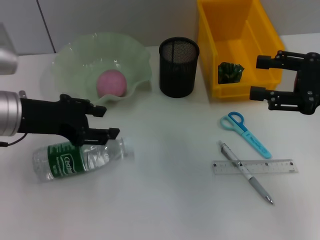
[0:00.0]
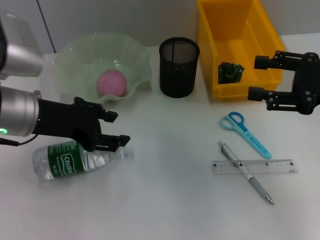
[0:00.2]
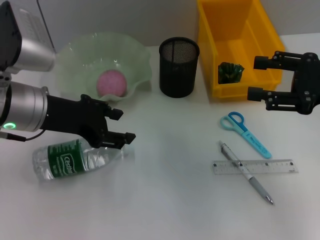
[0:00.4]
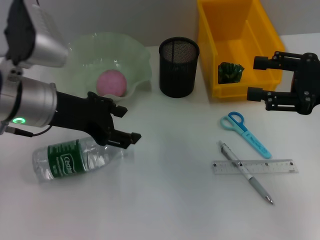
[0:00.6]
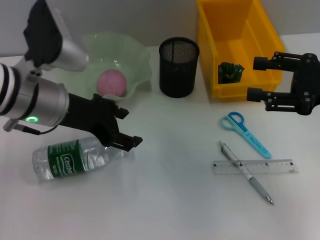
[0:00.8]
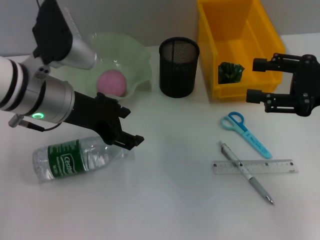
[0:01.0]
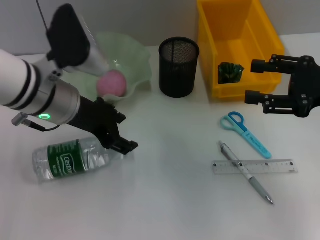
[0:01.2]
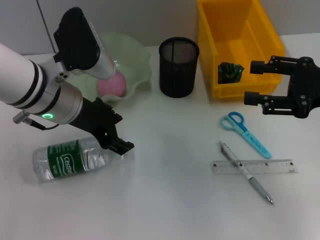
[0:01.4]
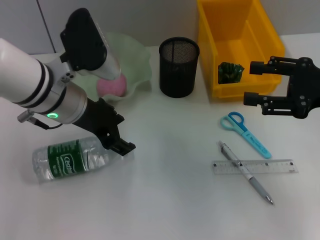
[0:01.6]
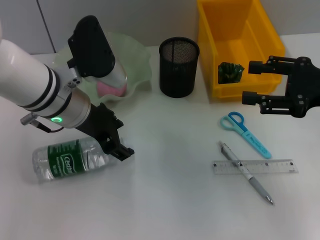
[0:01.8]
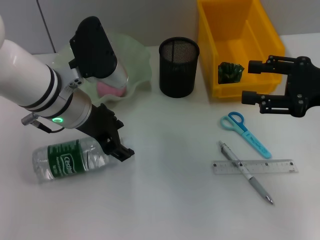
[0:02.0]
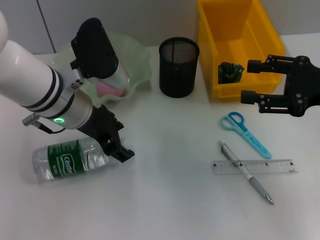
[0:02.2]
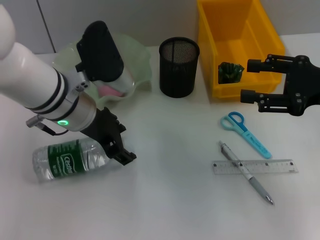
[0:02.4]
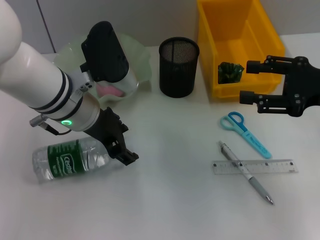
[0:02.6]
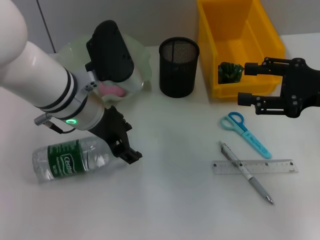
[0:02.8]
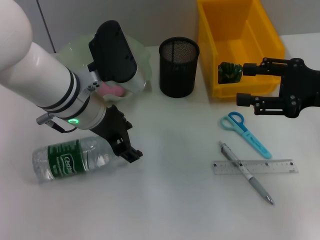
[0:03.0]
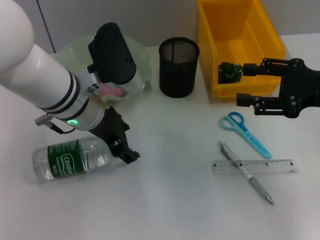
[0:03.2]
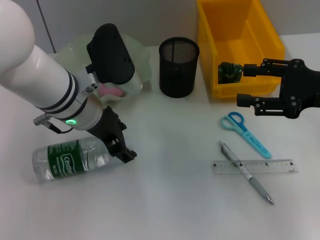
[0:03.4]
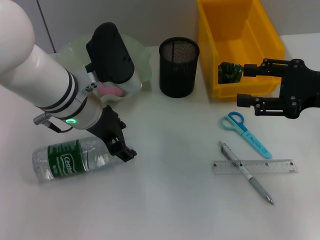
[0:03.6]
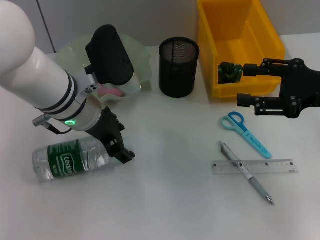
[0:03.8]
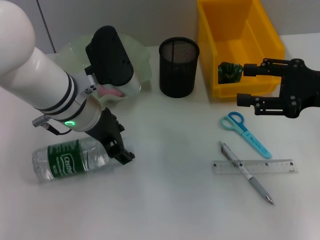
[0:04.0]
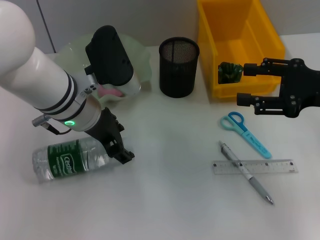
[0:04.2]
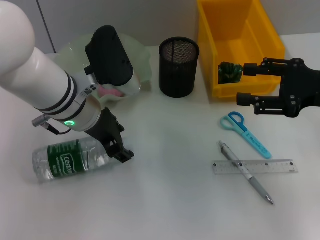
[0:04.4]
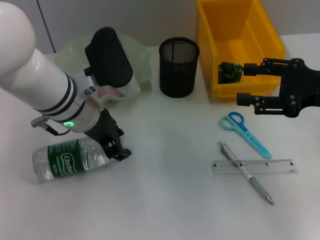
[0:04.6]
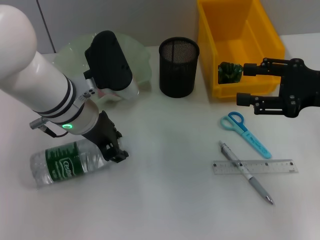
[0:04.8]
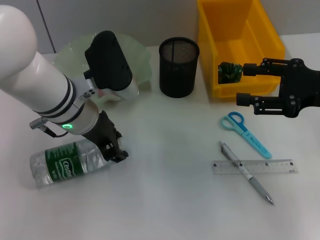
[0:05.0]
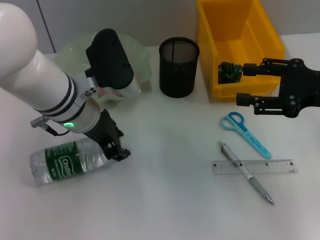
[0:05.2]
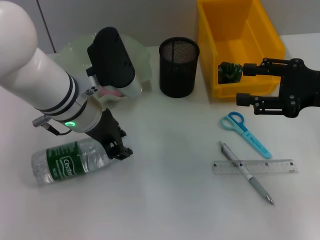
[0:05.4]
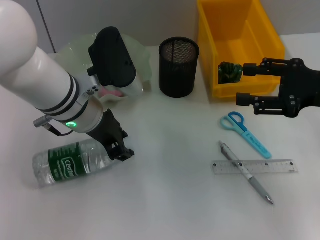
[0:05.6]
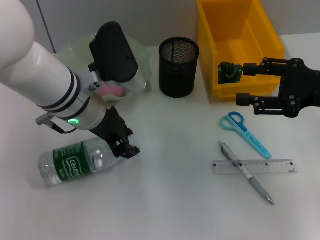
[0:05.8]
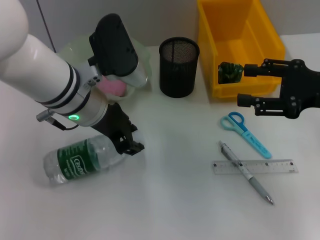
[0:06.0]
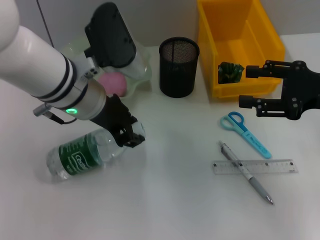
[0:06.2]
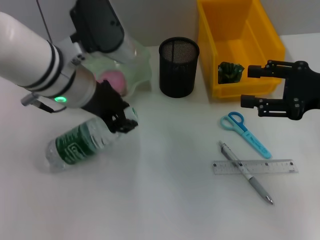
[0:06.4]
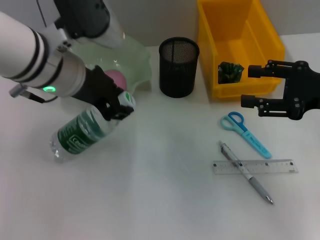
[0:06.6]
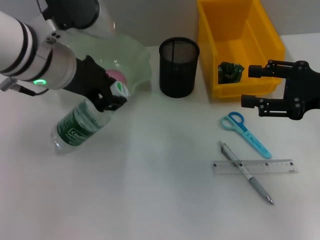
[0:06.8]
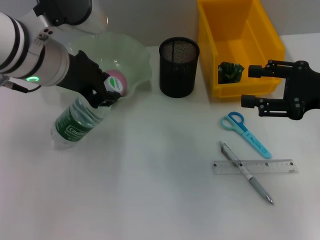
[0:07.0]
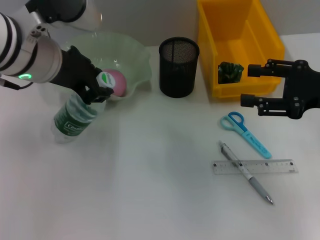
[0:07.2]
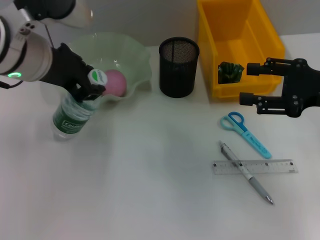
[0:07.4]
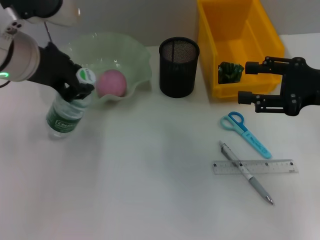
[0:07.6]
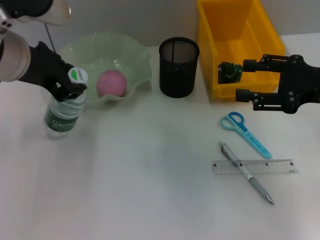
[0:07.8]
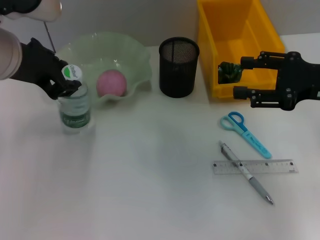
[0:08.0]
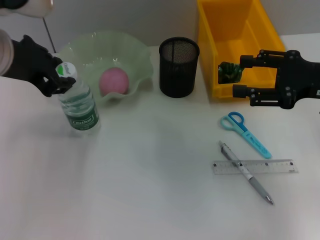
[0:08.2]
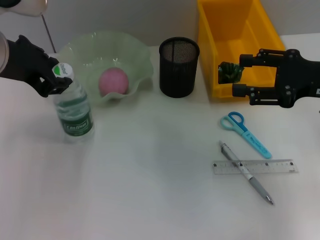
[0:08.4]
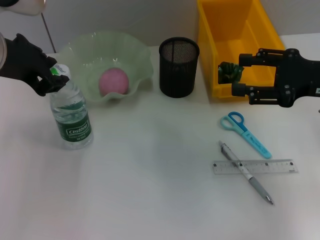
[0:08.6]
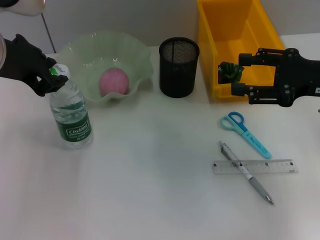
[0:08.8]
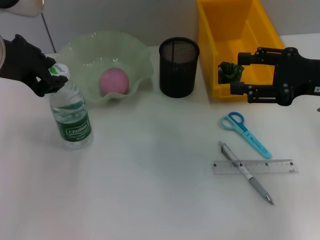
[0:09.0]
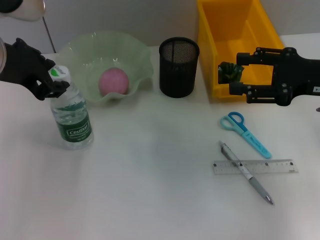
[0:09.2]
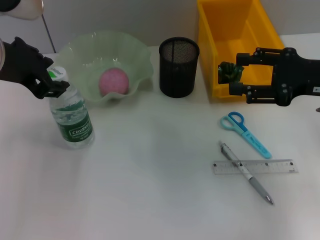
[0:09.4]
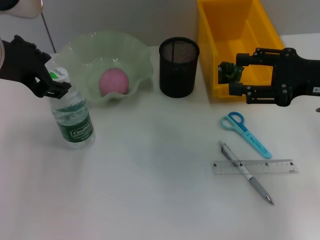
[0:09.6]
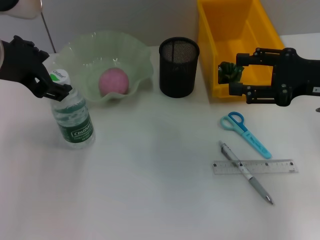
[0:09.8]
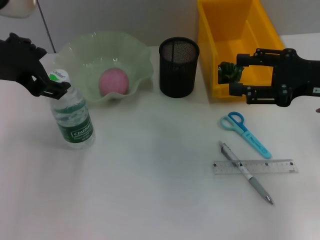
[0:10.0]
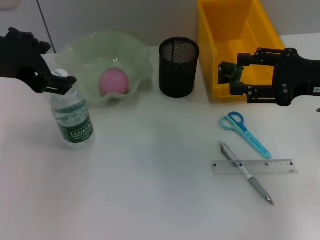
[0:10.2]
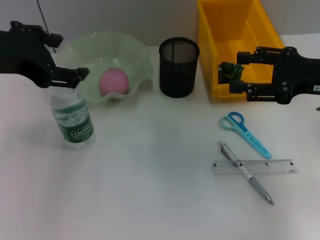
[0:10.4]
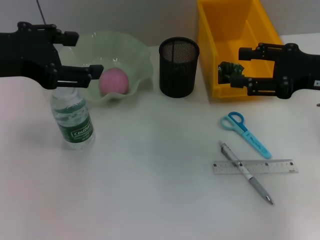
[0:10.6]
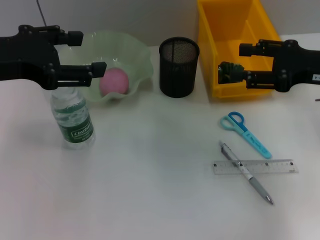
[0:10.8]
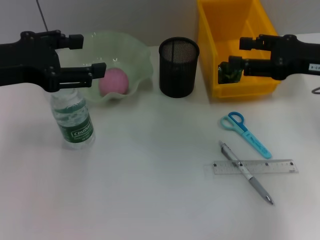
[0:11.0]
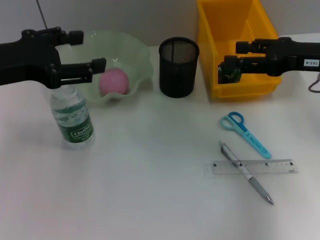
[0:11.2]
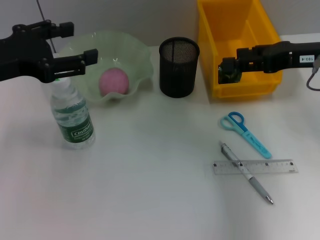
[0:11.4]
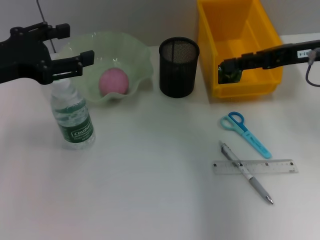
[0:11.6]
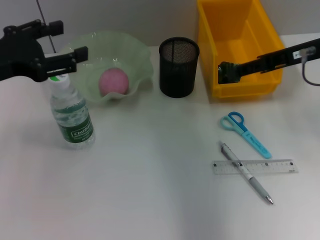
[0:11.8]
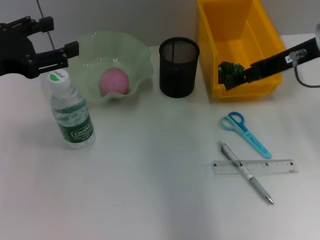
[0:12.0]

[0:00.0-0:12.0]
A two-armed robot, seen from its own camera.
Step, 0:00.0 to 0:04.6: Grab the water bottle with the left hand.
Step, 0:04.8 to 0:09.2: Place the water bottle on the table with the left hand.
0:00.0 to 0:01.6: The left gripper shifts approximately 10 cm to the right.
0:01.6 to 0:03.0: The grippers move only a little.
0:03.0 to 0:04.4: Neither gripper changes place.
0:04.4 to 0:06.0: The left gripper closes.
0:06.0 to 0:07.6: The left gripper travels upward and to the left by some 10 cm.
0:07.6 to 0:09.0: The grippers move only a little.
0:09.0 to 0:10.4: The left gripper opens up.
0:10.4 to 0:12.0: The right gripper shifts approximately 10 cm upward and to the left. The left gripper goes some 10 cm downward and to the left.

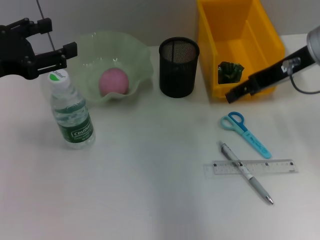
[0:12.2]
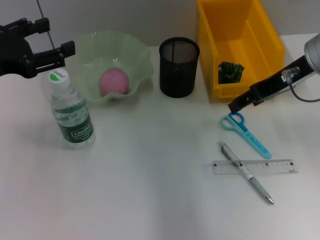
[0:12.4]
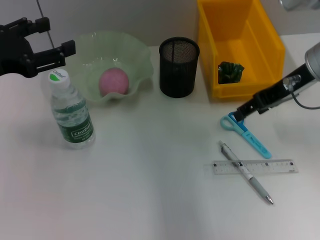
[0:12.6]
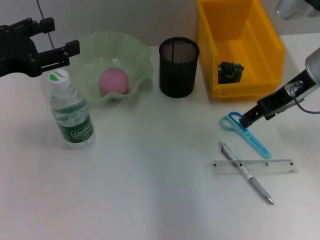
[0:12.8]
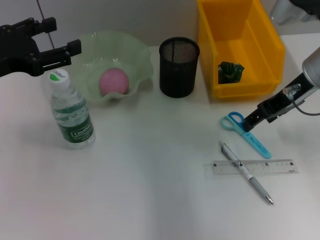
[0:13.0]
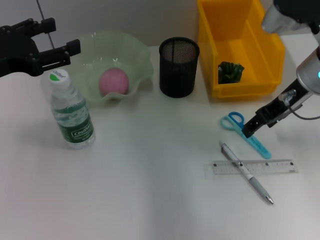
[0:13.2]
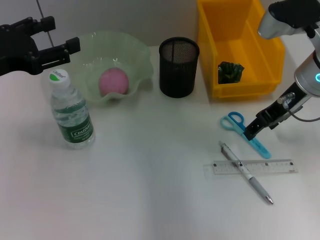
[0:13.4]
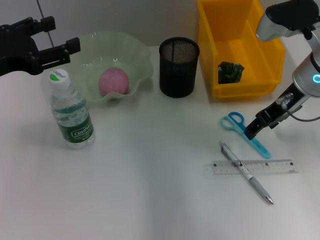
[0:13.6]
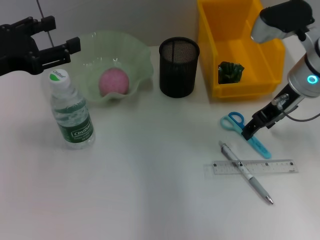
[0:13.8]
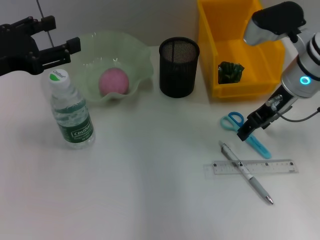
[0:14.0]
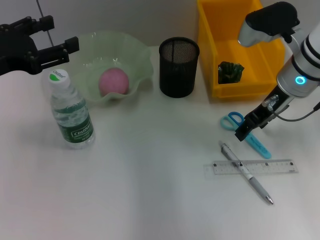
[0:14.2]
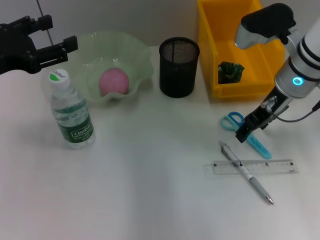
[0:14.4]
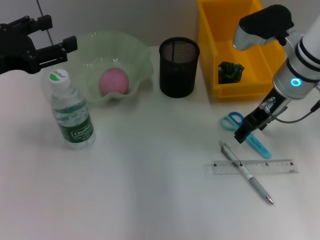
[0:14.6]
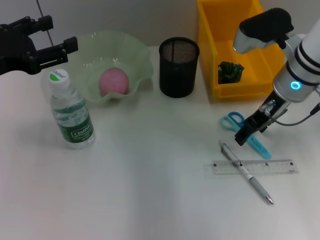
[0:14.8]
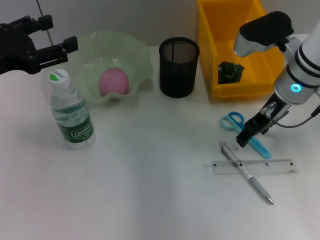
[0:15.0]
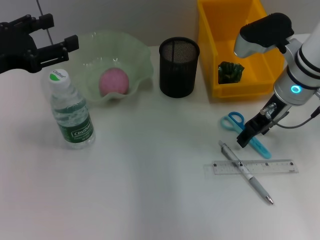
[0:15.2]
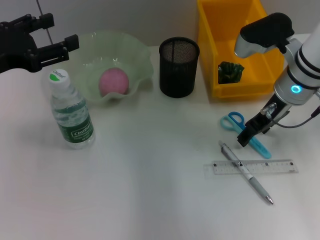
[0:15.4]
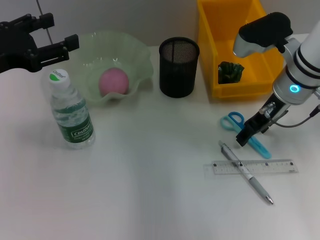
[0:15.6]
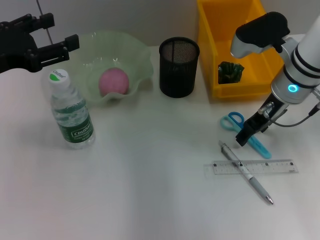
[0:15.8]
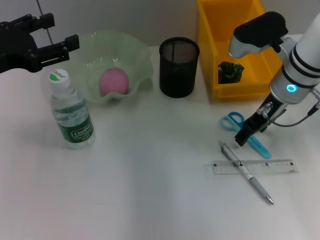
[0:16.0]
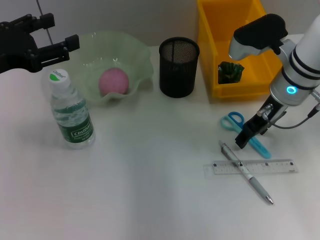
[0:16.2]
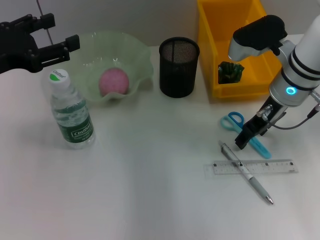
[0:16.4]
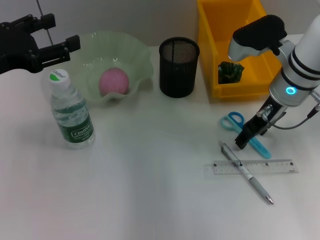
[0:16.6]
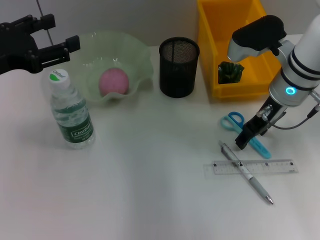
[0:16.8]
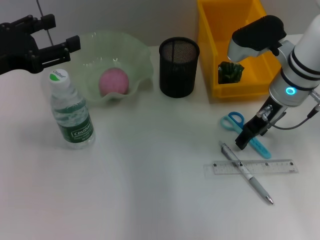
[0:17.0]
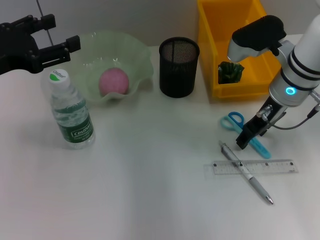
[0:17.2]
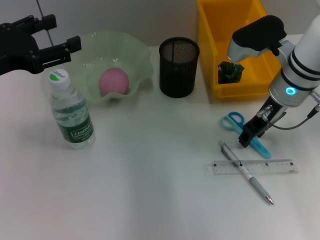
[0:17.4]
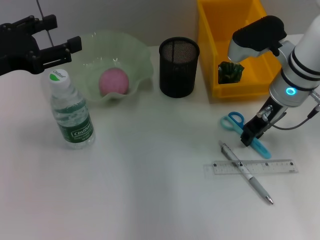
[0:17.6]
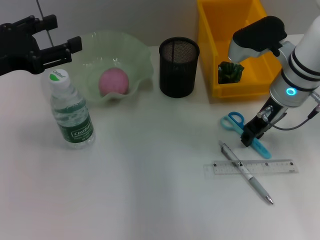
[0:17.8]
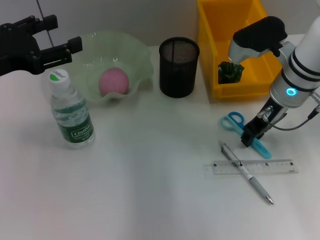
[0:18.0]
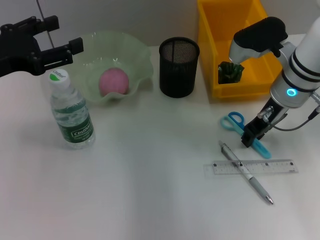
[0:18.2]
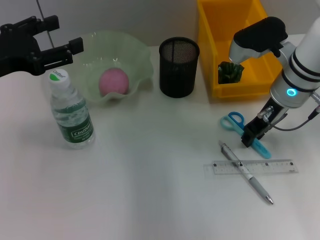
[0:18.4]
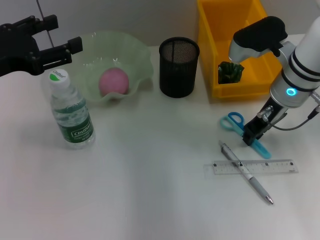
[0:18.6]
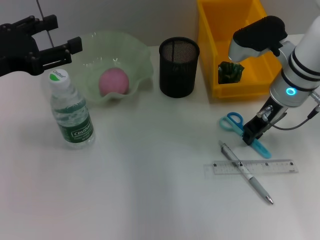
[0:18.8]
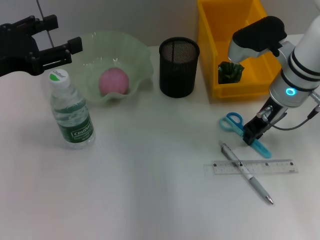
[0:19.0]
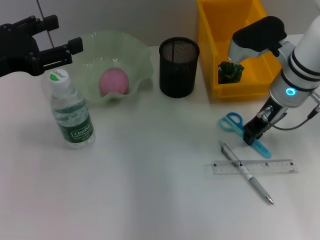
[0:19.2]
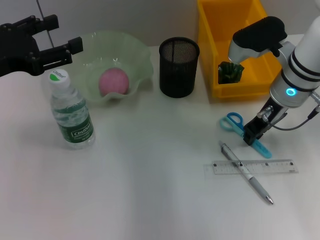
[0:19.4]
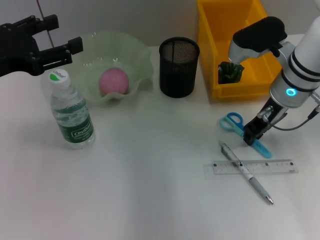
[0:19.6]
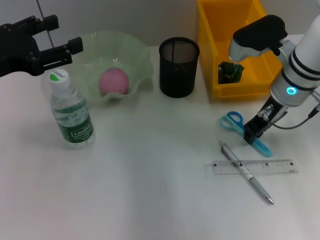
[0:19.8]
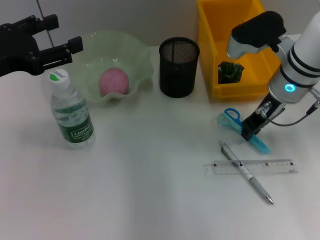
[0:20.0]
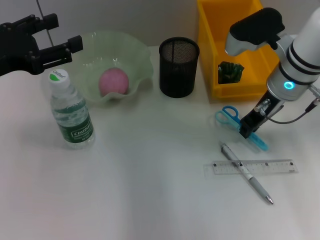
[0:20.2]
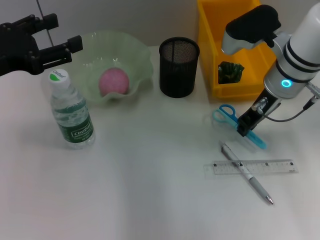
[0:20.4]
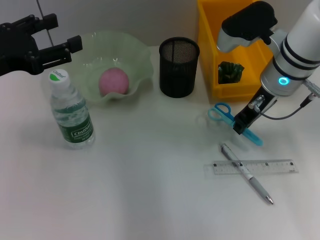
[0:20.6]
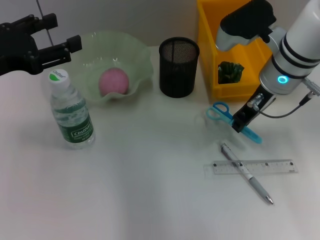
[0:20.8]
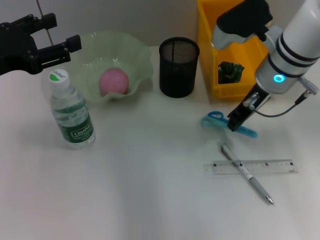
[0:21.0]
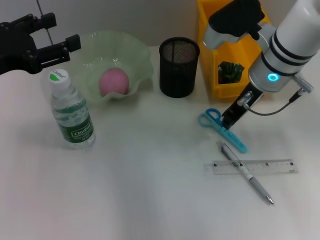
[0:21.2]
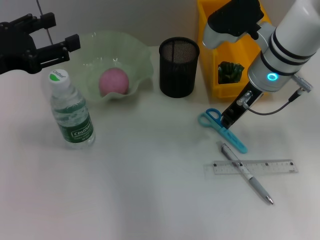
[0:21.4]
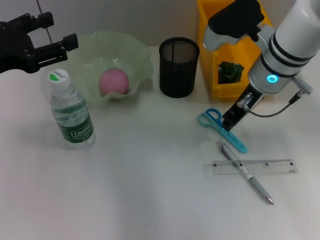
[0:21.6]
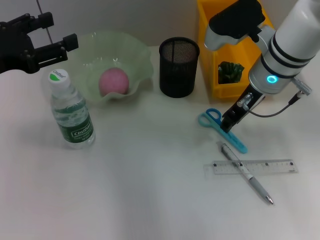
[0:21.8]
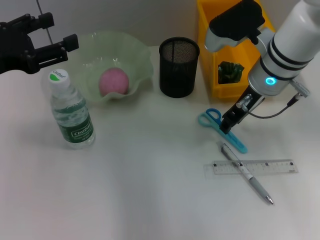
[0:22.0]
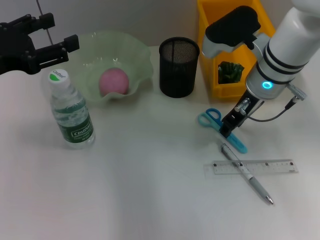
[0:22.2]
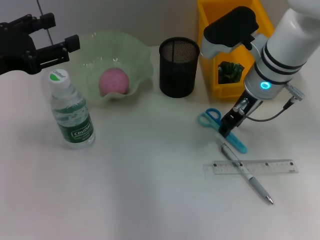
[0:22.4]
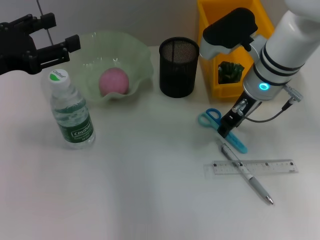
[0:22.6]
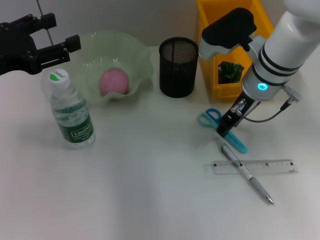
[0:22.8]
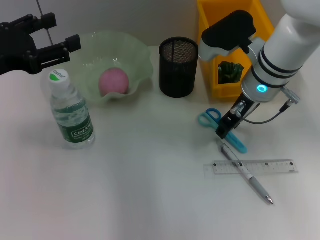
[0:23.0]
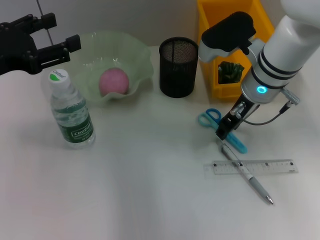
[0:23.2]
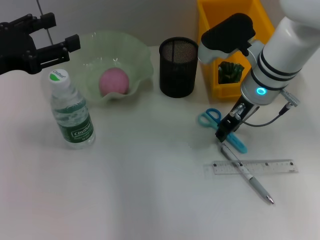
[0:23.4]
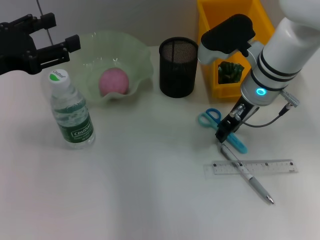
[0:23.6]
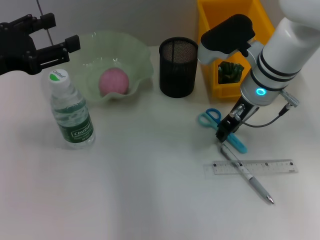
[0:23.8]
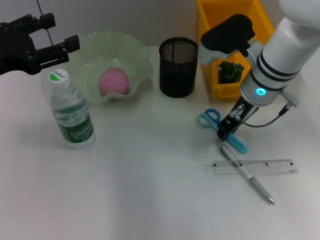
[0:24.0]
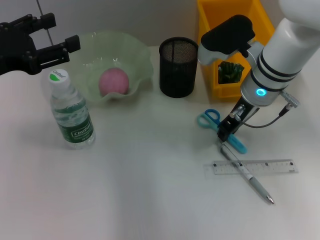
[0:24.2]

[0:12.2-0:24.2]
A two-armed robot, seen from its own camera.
0:12.2 to 0:13.8: The right gripper heads downward, covering roughly 5 cm.
0:13.8 to 0:15.2: The grippers move only a little.
0:15.2 to 0:16.6: Neither gripper changes place.
0:16.6 to 0:18.2: The right gripper closes up.
0:18.2 to 0:19.8: Both grippers stay put.
0:19.8 to 0:22.6: The grippers make only small movements.
0:22.6 to 0:24.2: Both grippers stay about where they are.
